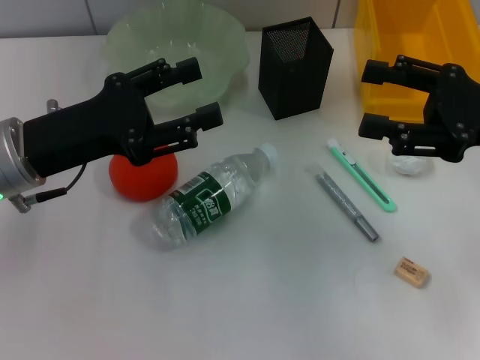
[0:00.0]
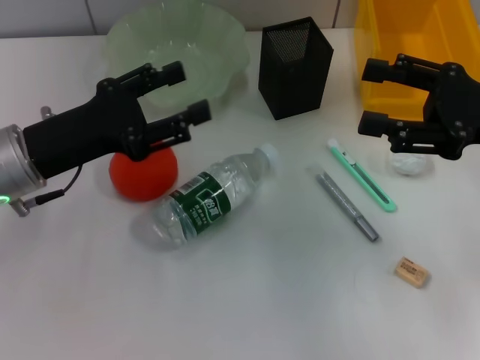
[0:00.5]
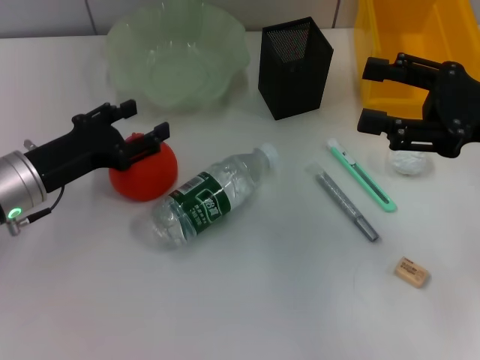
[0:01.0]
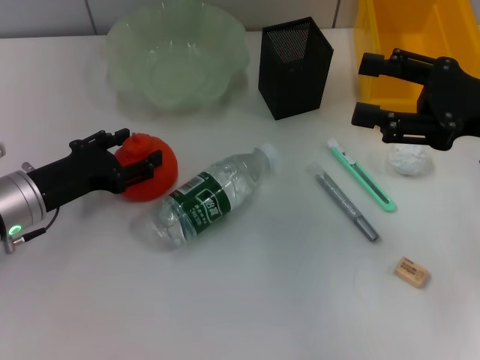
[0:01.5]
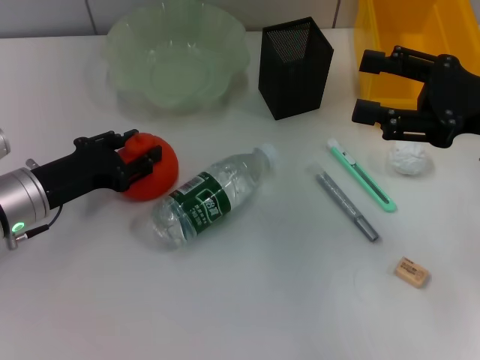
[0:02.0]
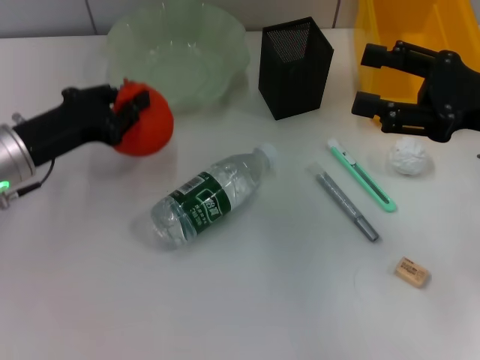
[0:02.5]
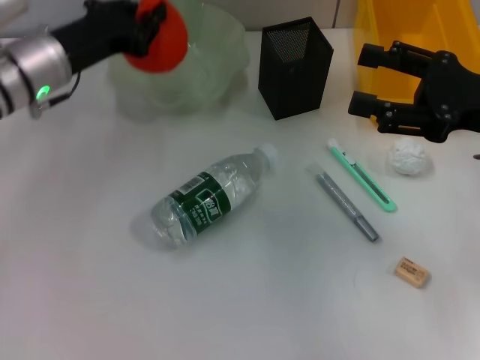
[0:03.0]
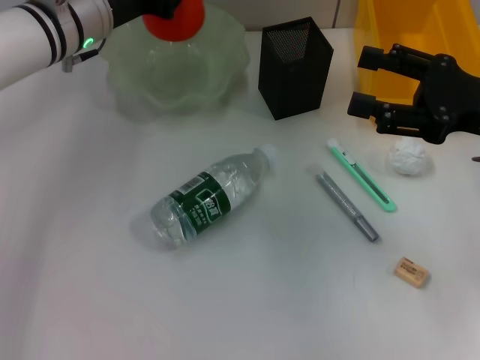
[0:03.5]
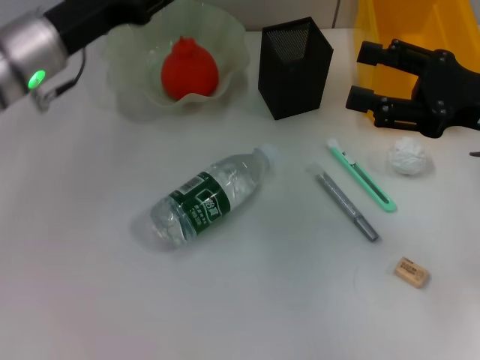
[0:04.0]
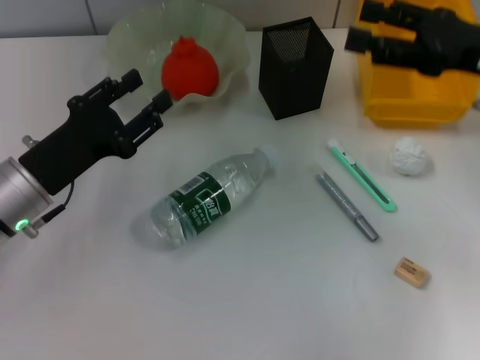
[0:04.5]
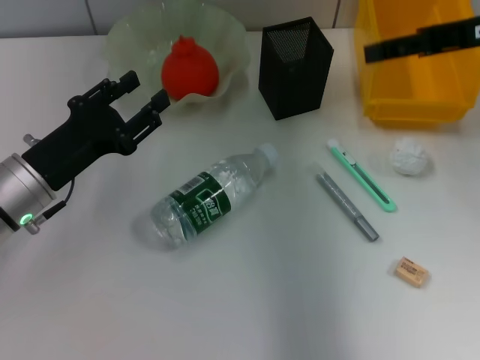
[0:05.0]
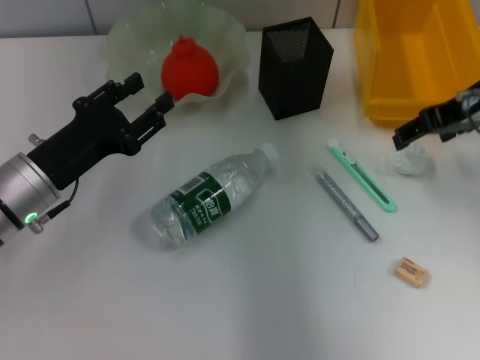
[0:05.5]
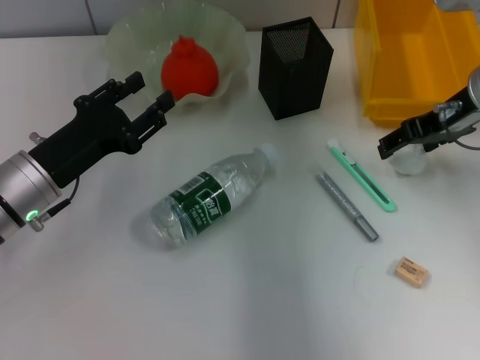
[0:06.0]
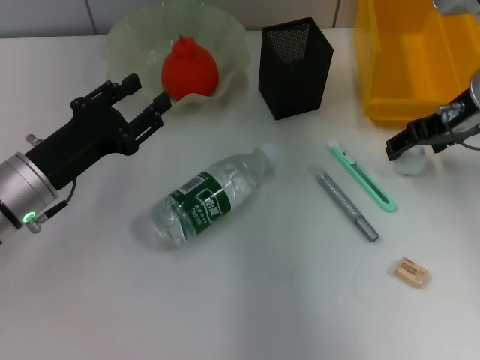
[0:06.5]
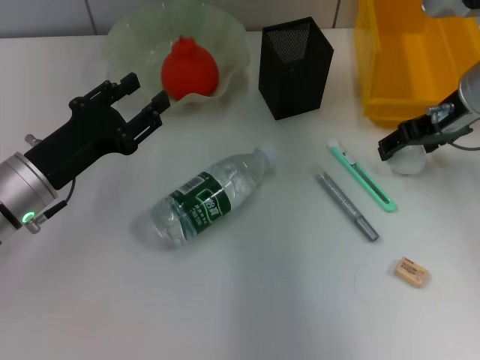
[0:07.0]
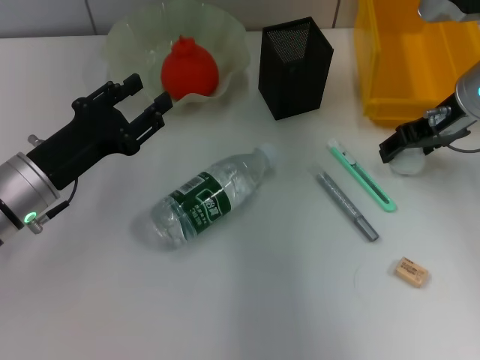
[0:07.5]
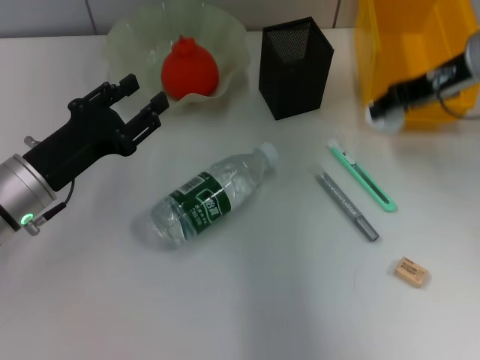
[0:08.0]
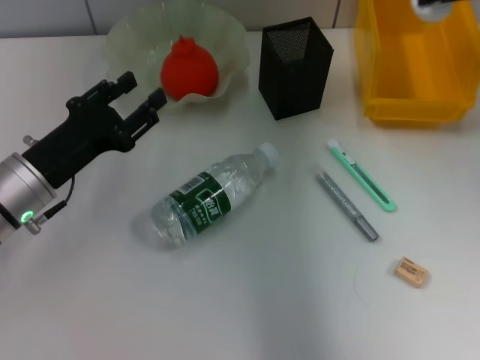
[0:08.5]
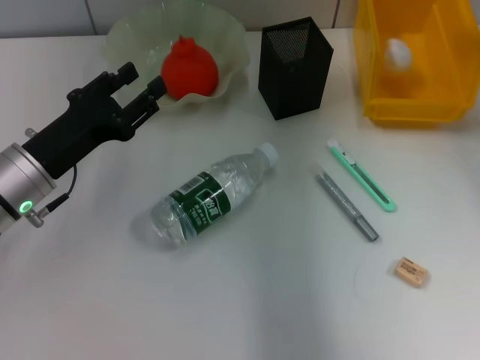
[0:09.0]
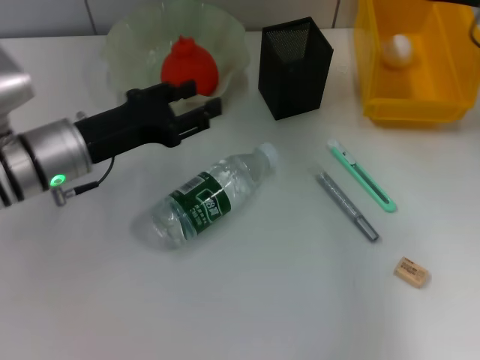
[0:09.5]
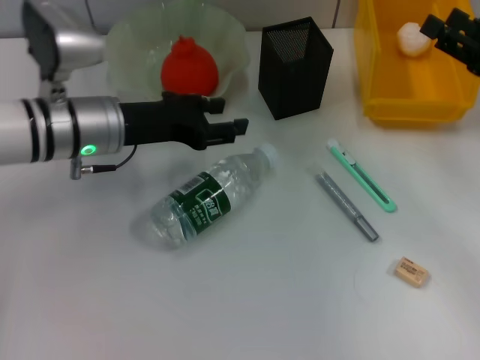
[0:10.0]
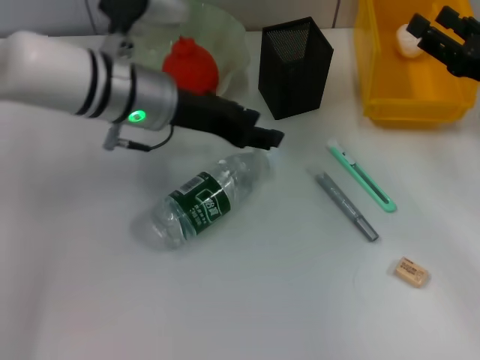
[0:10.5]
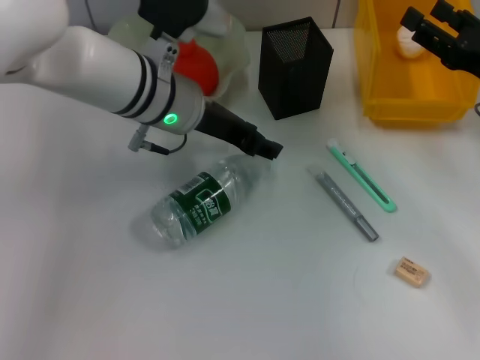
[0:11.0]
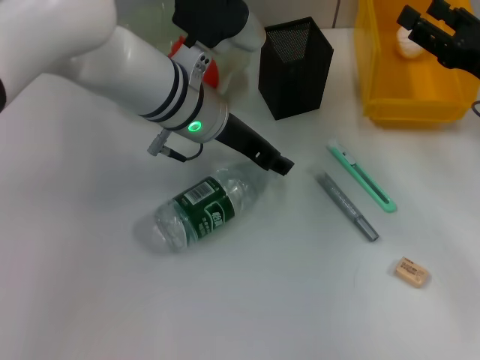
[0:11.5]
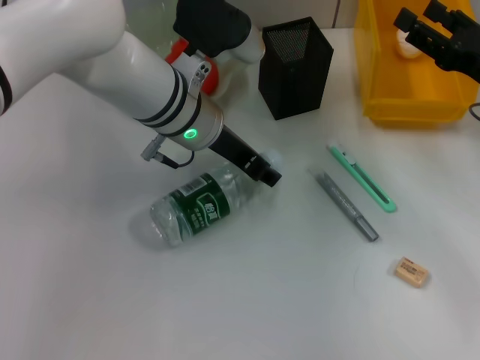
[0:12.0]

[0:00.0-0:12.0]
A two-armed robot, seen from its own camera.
Step, 0.0 to 2.0 s: Grab the orange with the left hand.
Step, 2.5 to 3.5 s: Place the orange into the fruit bowl with the left hand.
Step, 4.0 to 7.5 s: Grab the paper ball with the right hand.
Step, 8.0 to 9.0 s: Place the paper ball into the trash can with the right hand.
0.0 to 2.0 s: The left gripper shifts about 10 cm downward.
2.0 to 4.0 s: The left gripper moves upward and forward, roughly 10 cm, and closes, then opens again.
4.0 to 6.0 s: The right gripper moves forward, roughly 10 cm, and travels upward and back again, about 10 cm each way. The left gripper moves backward and downward, approximately 10 cm.
6.0 to 8.0 s: The right gripper closes its fingers.
8.0 to 10.0 s: The right gripper is displaced to the right, downward and backward by approximately 15 cm. Meanwhile the left gripper is displaced forward and to the right by some 10 cm.
10.0 to 12.0 s: The left gripper shifts some 10 cm to the right.

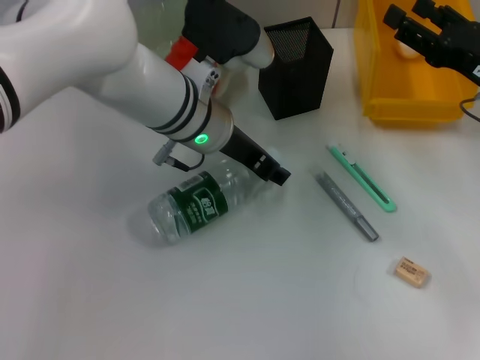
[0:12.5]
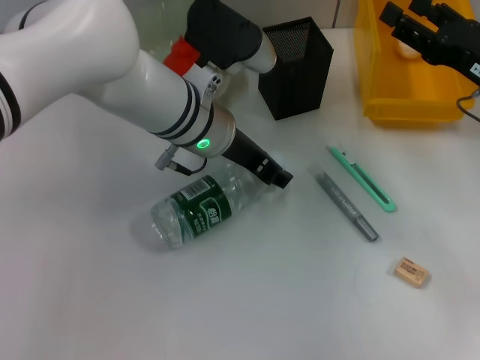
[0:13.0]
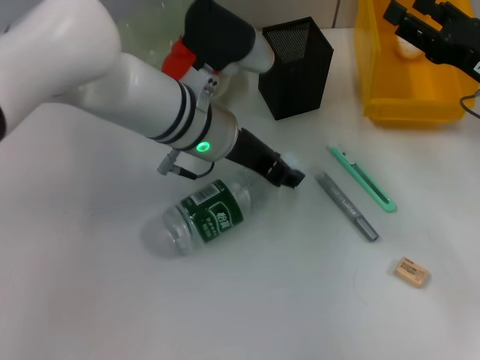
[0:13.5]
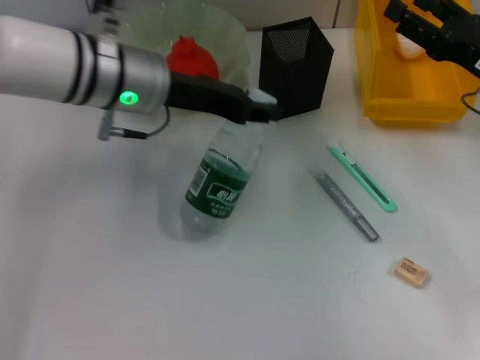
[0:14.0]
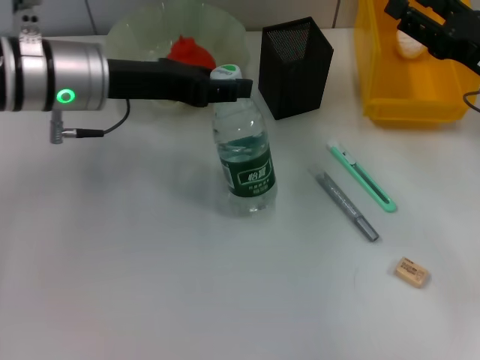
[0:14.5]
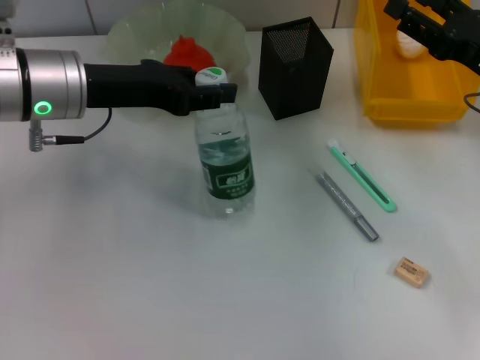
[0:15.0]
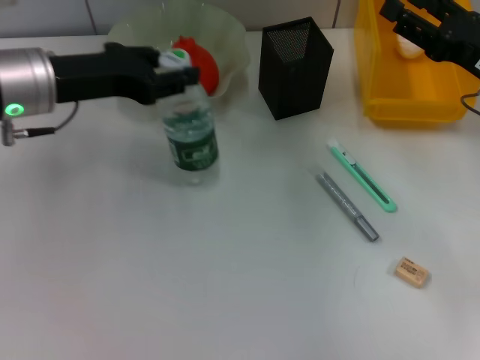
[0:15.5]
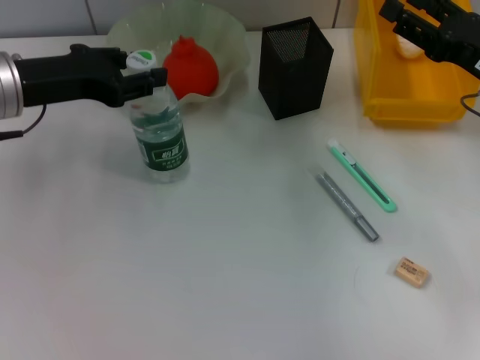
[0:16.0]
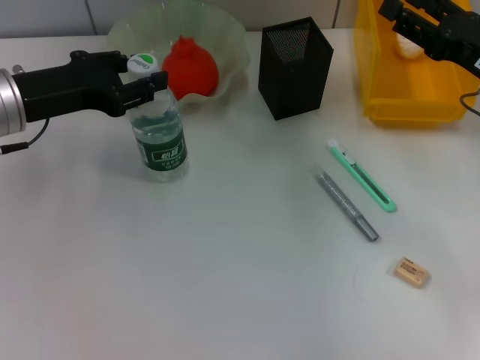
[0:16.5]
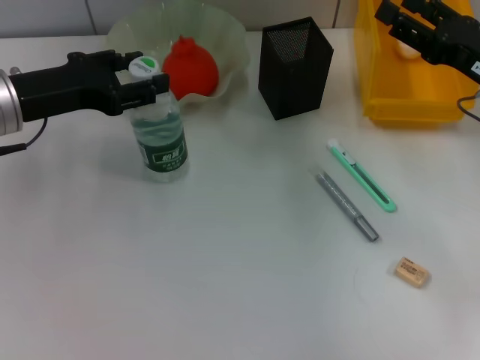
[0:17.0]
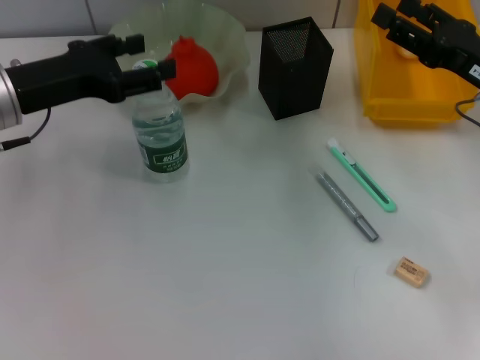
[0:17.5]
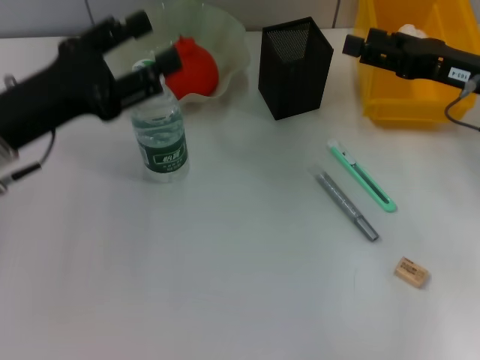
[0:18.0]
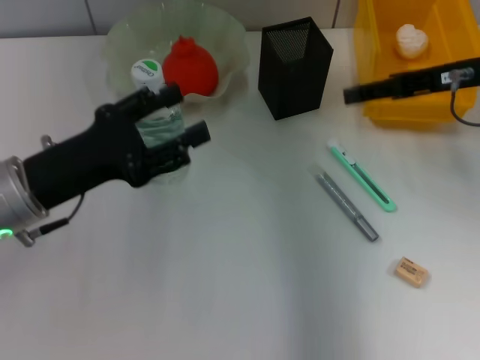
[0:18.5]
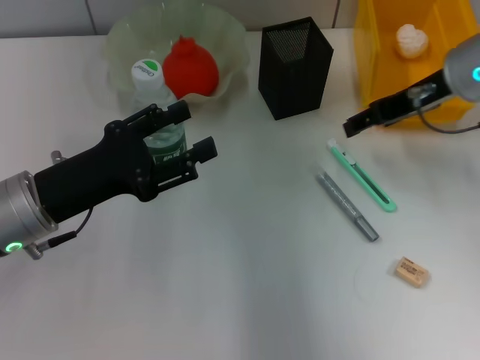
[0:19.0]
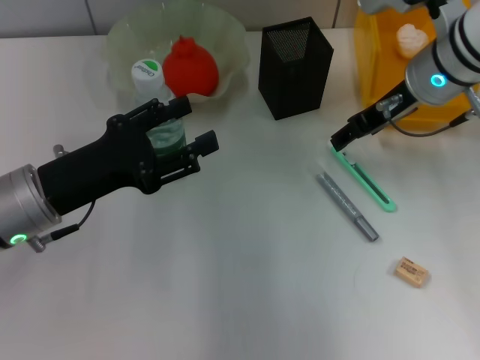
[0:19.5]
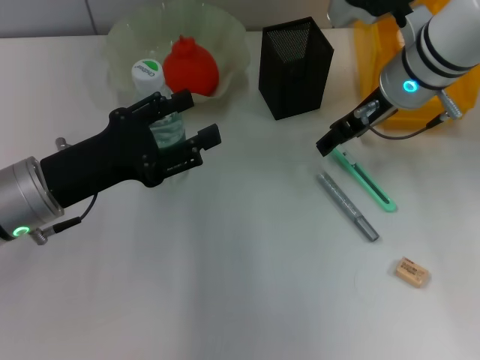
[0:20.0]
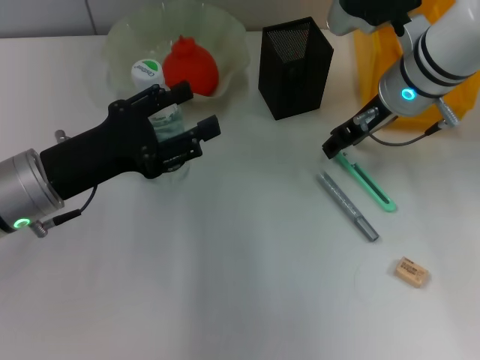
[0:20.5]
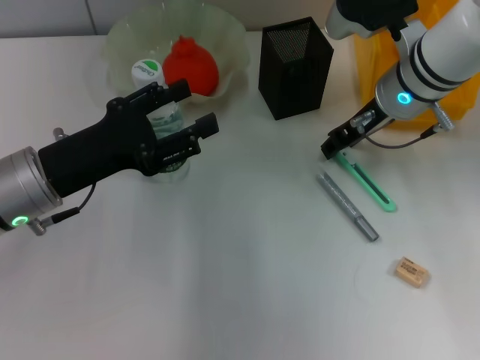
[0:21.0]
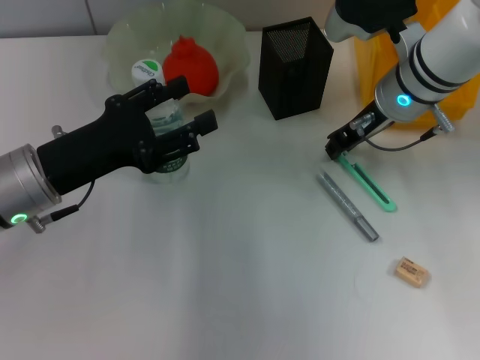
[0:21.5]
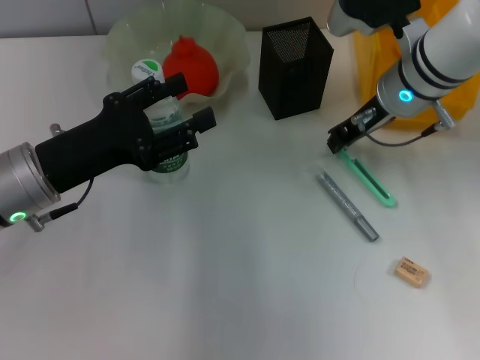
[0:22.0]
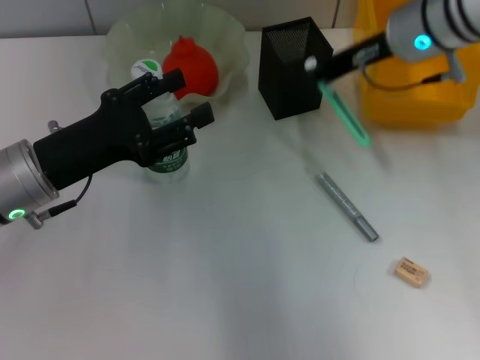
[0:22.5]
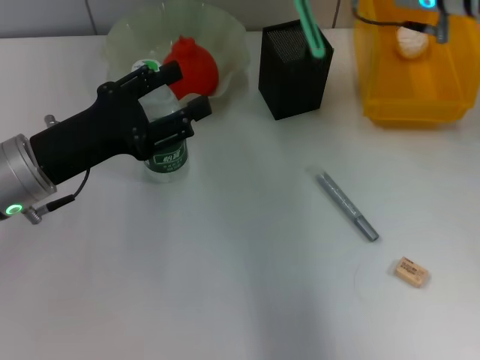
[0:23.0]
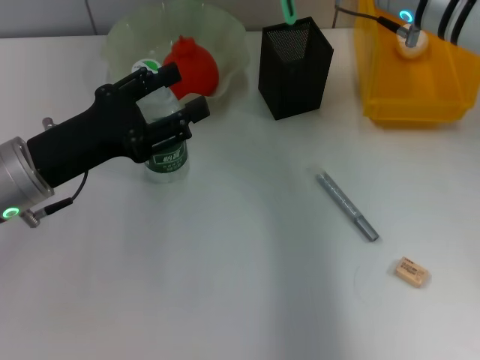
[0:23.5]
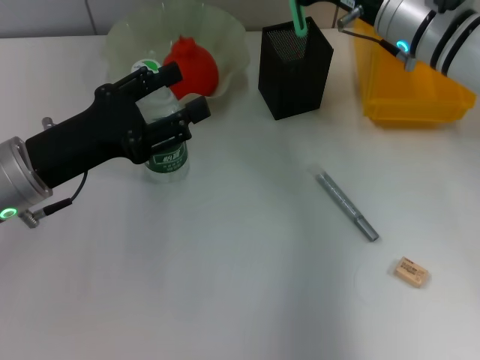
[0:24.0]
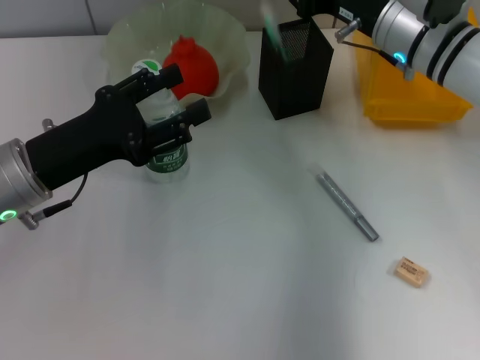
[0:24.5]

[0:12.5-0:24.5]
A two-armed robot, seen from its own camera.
Step, 13.5 to 17.0 s: Place the water bottle on the table with the left hand.
Step, 17.5 to 21.5 s: Grab the blue utility knife with the right hand.
12.5 to 14.5 s: The left gripper shifts about 15 cm to the left and upward.
14.5 to 16.5 s: The left gripper shifts about 5 cm to the left.
16.5 to 18.5 s: The right gripper shifts some 10 cm upward, while the left gripper shifts approximately 5 cm backward.
18.5 to 20.5 s: The right gripper heads to the left and downward, covering some 10 cm.
20.5 to 22.5 s: The right gripper goes roughly 5 cm upward, and closes.
22.5 to 24.5 s: The right gripper goes approximately 5 cm downward.

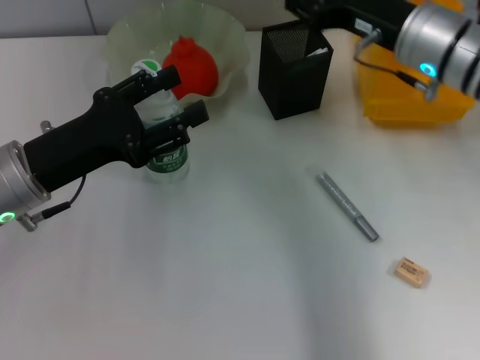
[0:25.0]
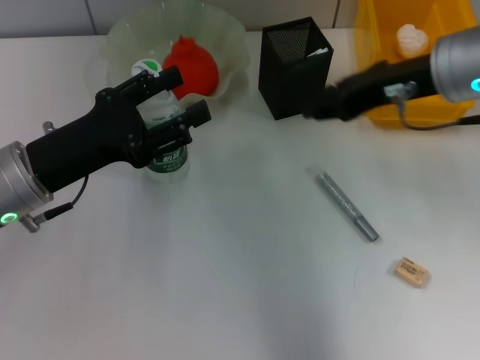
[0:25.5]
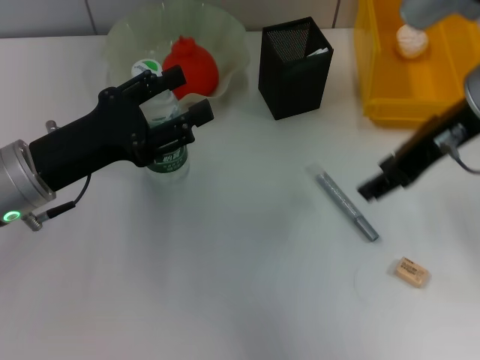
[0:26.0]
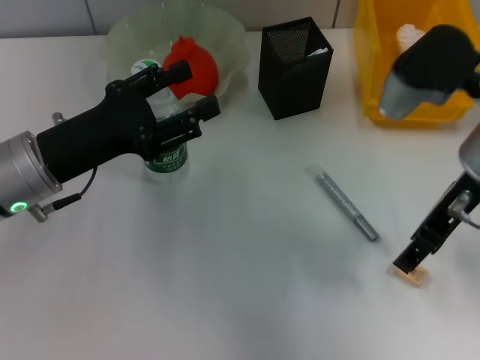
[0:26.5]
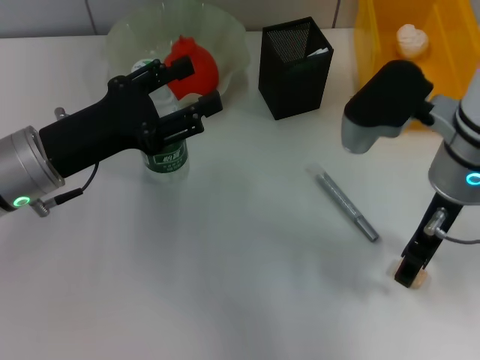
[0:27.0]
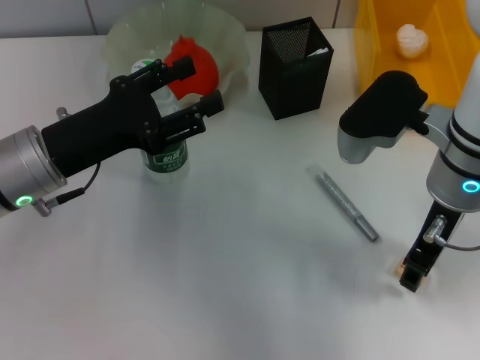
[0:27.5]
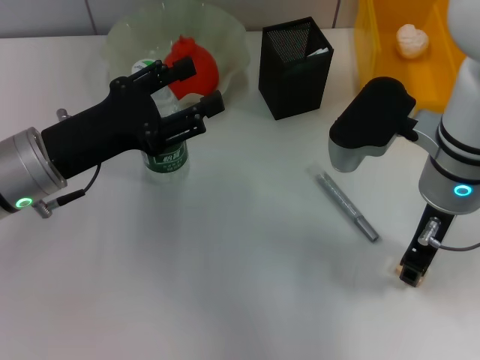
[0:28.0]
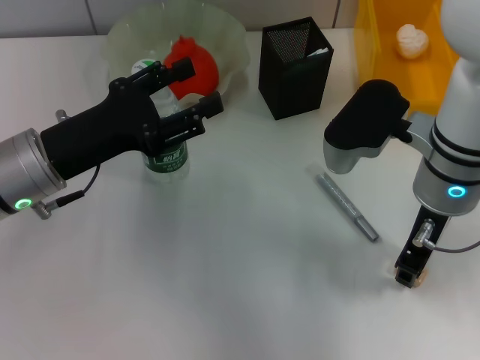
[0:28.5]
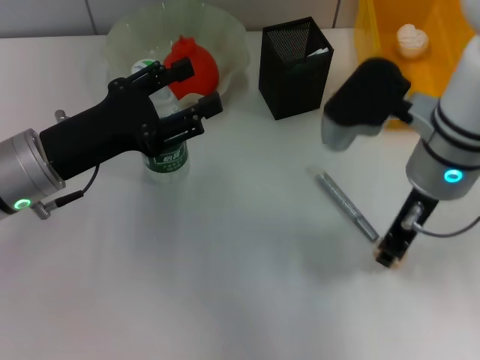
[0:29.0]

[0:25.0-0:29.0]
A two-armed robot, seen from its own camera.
Step, 25.0 to 28.5 s: Grab the eraser with the right hand.
25.0 to 27.0 s: The right gripper travels backward by approximately 5 cm, and opens up.
27.0 to 29.0 s: The right gripper closes up.
